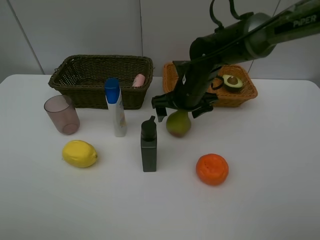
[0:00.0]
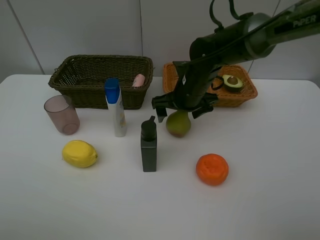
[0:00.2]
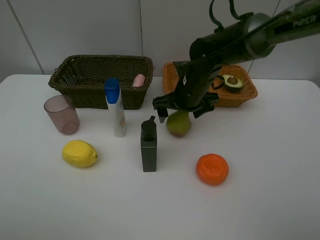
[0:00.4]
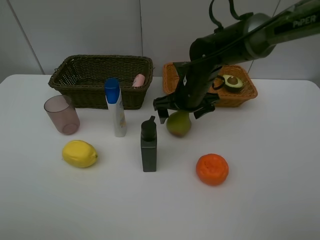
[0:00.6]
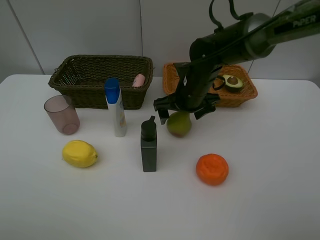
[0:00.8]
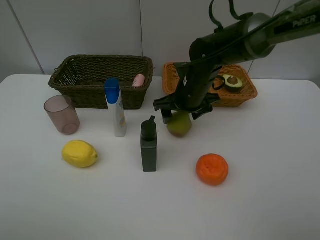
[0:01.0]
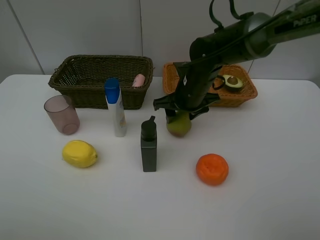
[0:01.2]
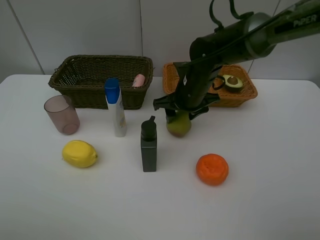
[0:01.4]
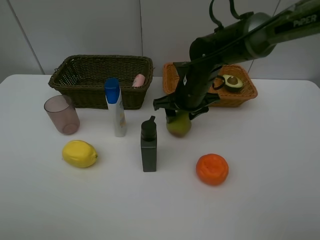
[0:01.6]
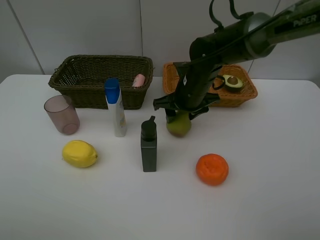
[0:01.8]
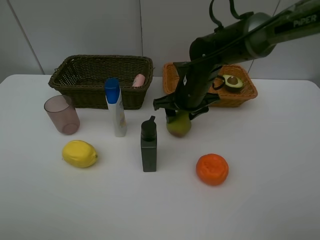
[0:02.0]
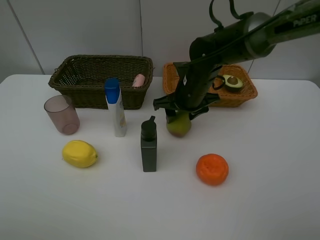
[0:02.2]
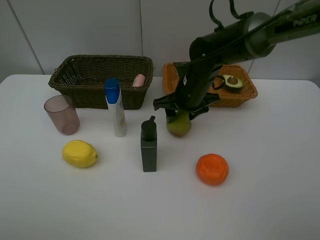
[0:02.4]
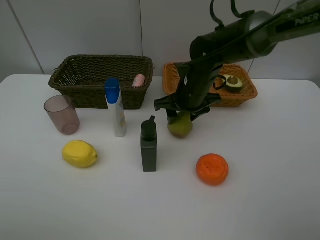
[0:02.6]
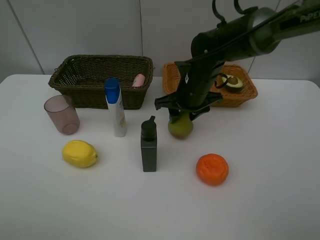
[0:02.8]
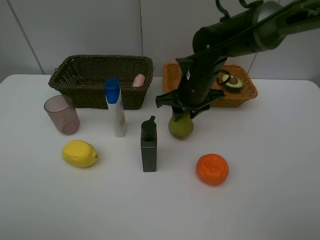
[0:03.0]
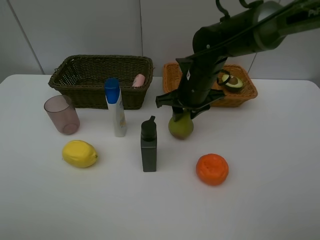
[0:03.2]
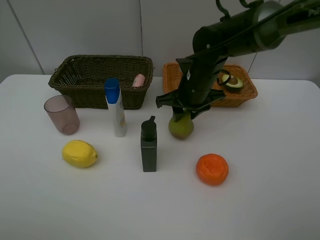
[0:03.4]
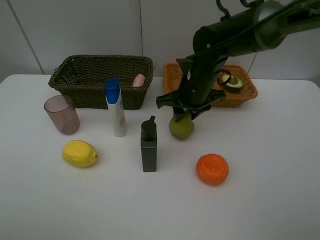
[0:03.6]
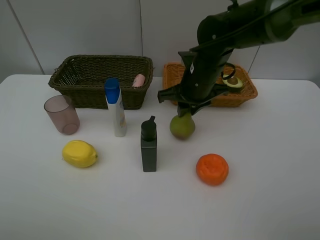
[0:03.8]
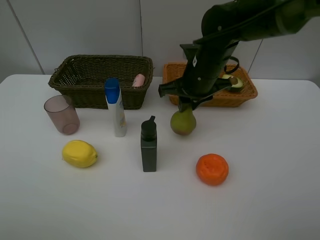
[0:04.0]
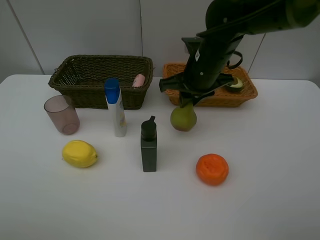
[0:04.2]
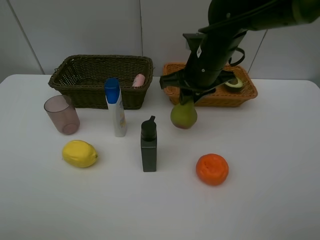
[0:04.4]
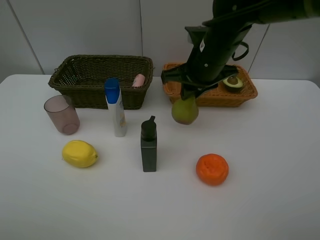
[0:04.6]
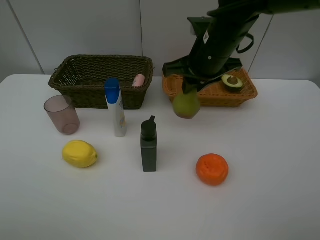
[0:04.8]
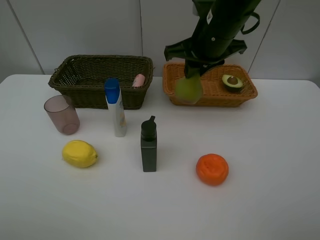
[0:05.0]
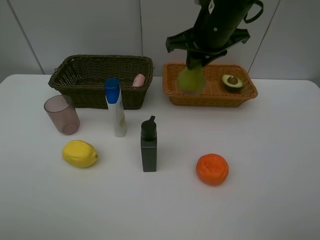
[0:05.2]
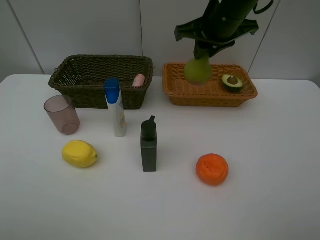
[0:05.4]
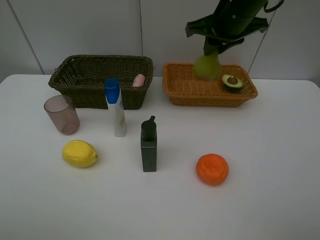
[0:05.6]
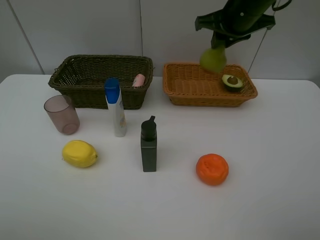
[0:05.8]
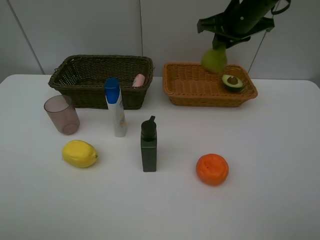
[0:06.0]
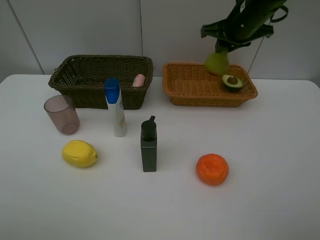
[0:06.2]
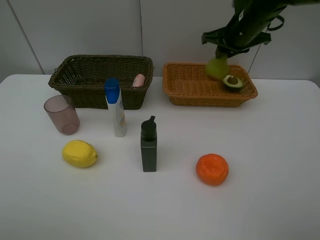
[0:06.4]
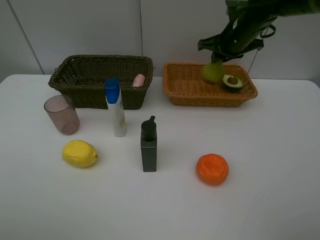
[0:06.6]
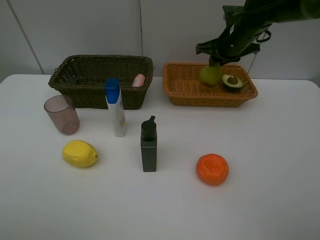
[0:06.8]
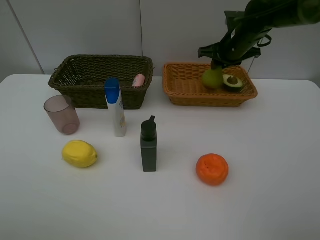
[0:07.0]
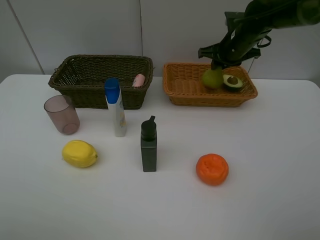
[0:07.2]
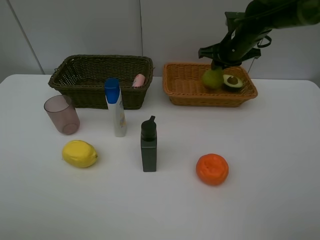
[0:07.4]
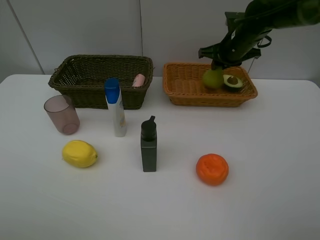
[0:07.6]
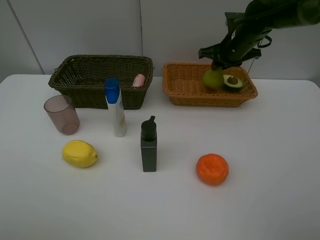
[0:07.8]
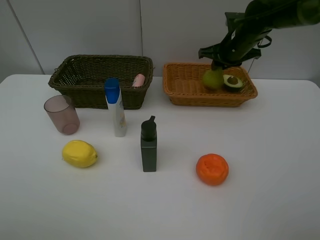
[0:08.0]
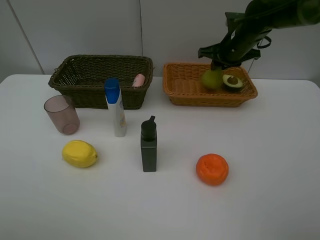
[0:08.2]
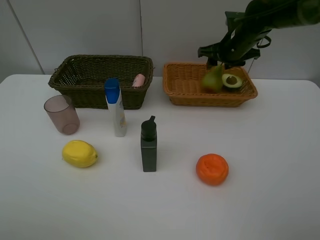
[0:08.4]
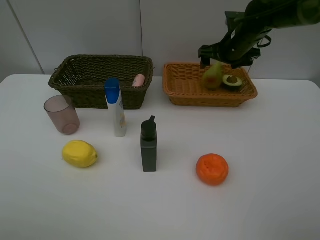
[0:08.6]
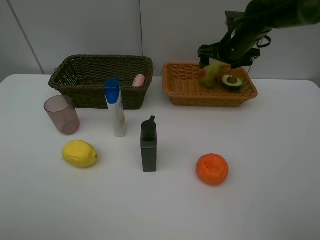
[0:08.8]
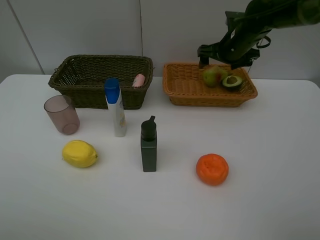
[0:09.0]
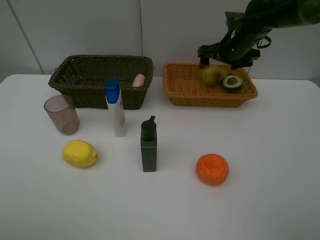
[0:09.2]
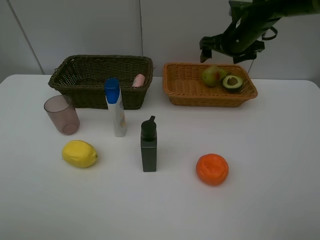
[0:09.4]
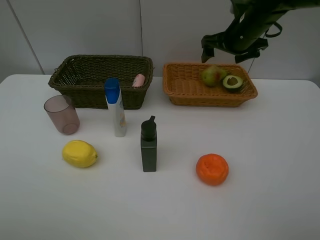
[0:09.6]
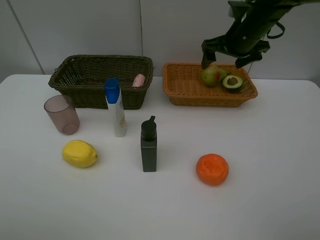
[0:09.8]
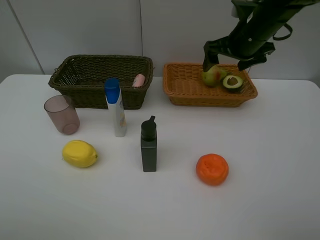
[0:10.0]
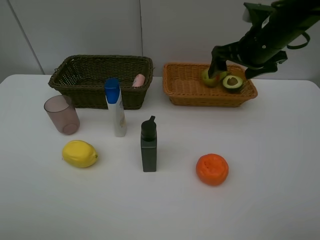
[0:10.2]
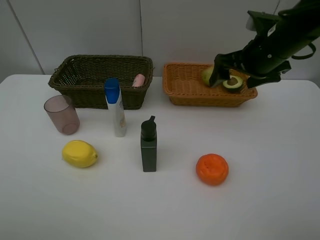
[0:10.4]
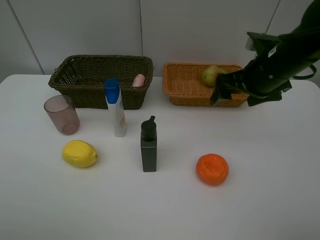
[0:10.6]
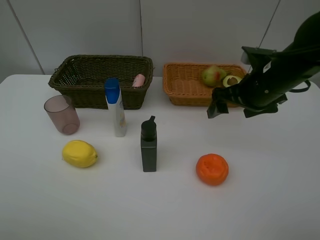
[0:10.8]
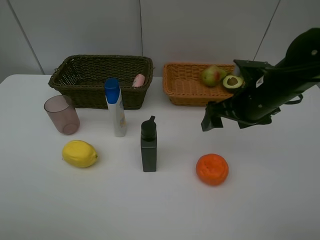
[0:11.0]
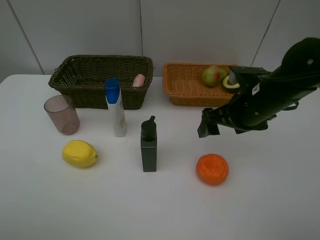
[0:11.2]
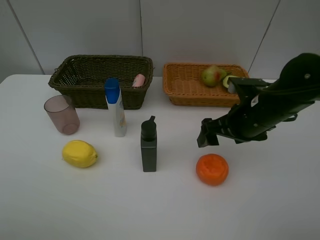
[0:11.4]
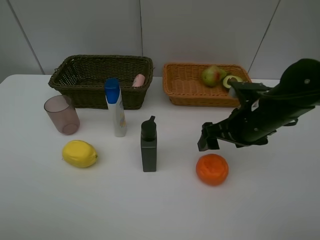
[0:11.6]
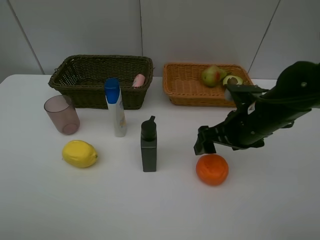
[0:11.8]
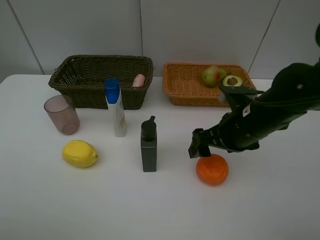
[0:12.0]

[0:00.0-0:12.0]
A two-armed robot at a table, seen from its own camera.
Task of the whole recording: Place multiple objects separately in different baskets.
Step, 0:00.0 to 0:04.2: Pick up the pear with right gripper.
Step, 0:04.4 to 0:08.6: Place the pear in the light basket with right gripper.
0:00.0 to 0:01.6: The right gripper closes.
0:01.6 to 0:03.0: The grippers make only small movements.
0:03.0 to 0:04.4: The right gripper shifts approximately 5 cm upward.
0:04.4 to 0:06.0: The right gripper heads to the right, forward and upward, covering approximately 10 cm.
0:06.0 to 0:07.6: The right gripper heads downward, covering approximately 10 cm.
0:07.6 to 0:09.0: The right gripper opens its fingers.
0:09.0 to 0:10.4: The right gripper travels backward by some 15 cm.
0:10.4 to 0:12.0: The right gripper heads downward and backward, covering some 10 cm.

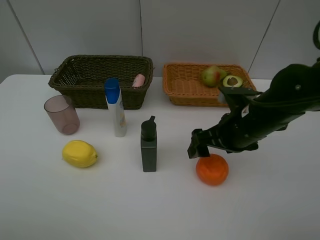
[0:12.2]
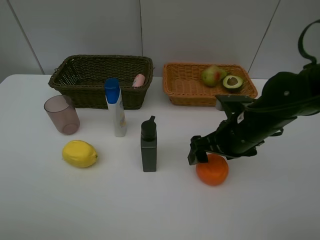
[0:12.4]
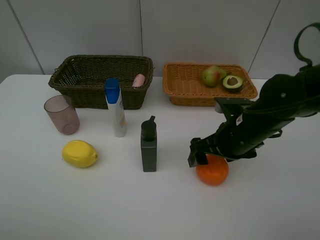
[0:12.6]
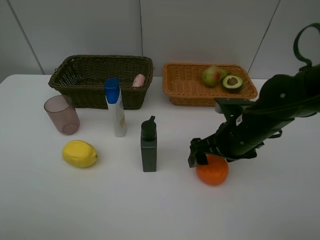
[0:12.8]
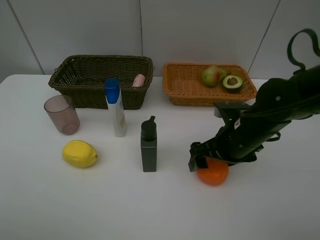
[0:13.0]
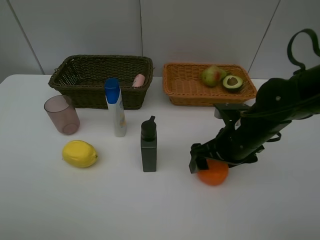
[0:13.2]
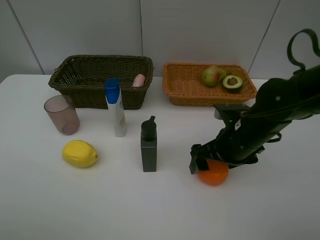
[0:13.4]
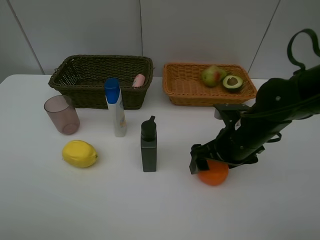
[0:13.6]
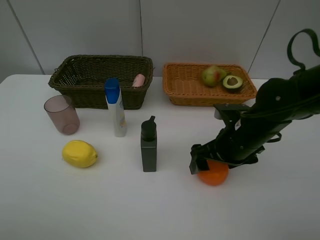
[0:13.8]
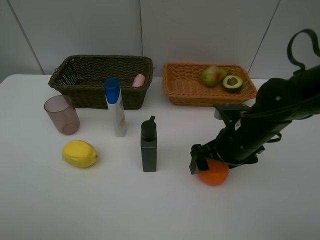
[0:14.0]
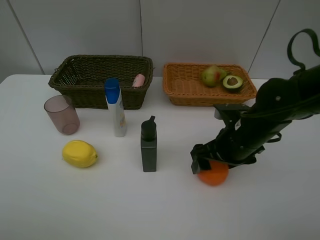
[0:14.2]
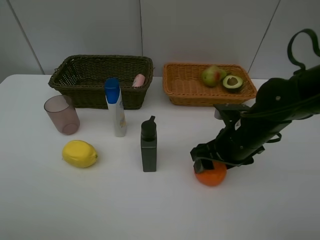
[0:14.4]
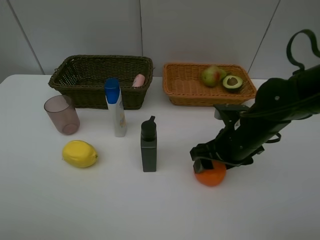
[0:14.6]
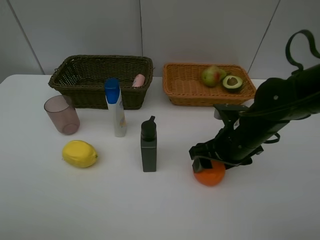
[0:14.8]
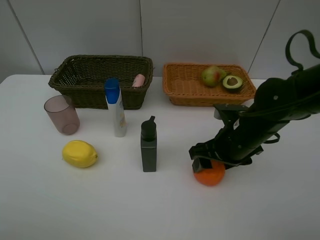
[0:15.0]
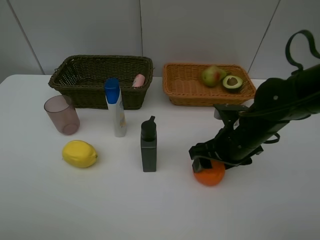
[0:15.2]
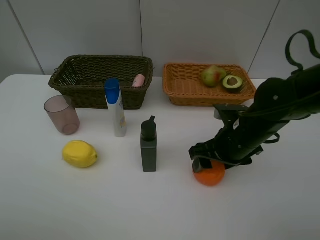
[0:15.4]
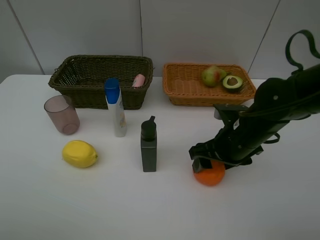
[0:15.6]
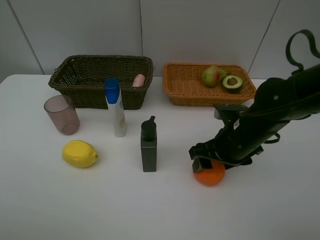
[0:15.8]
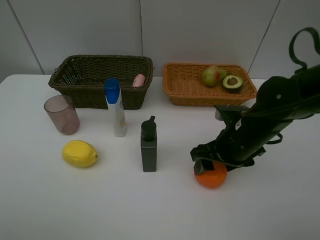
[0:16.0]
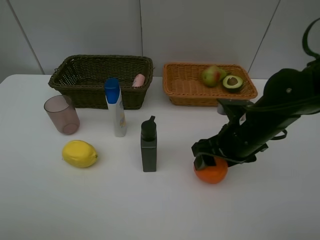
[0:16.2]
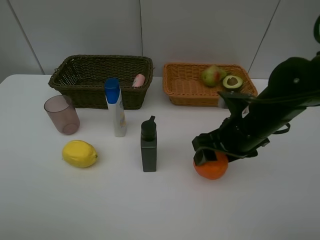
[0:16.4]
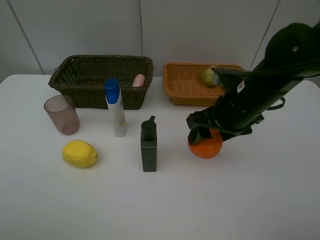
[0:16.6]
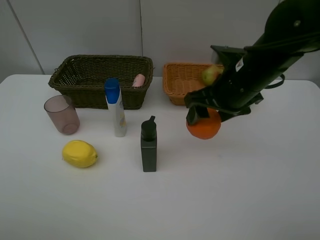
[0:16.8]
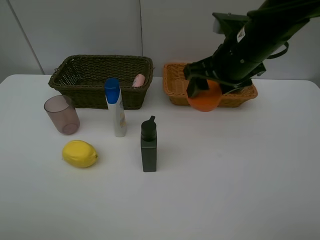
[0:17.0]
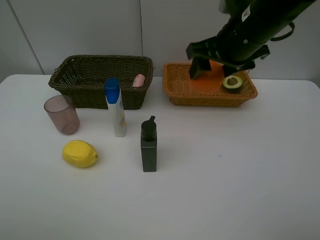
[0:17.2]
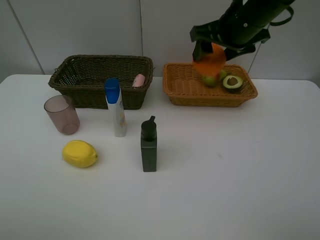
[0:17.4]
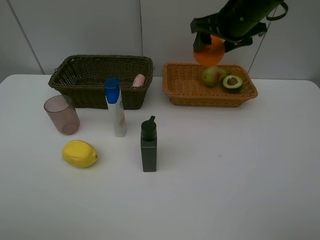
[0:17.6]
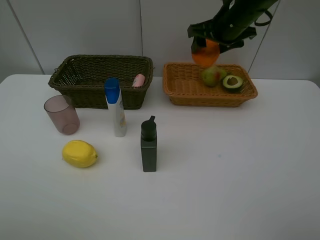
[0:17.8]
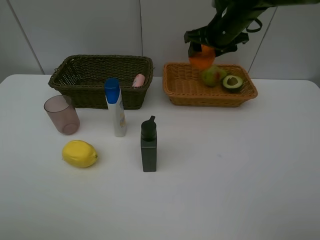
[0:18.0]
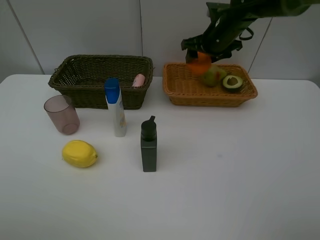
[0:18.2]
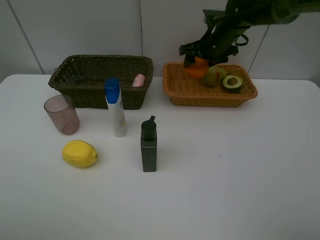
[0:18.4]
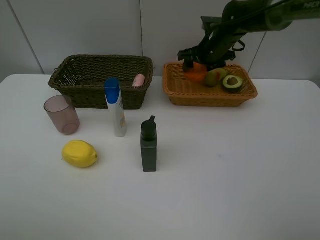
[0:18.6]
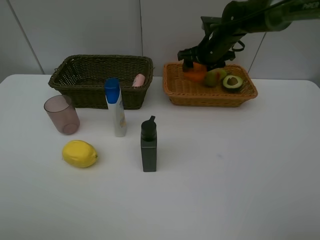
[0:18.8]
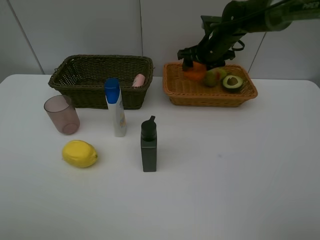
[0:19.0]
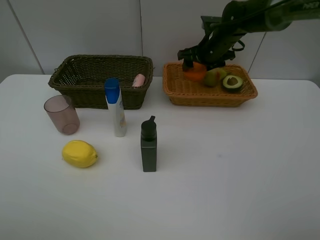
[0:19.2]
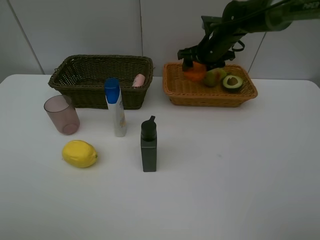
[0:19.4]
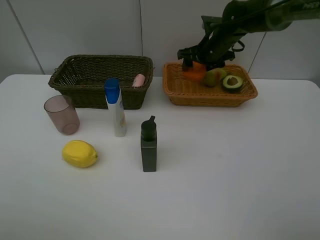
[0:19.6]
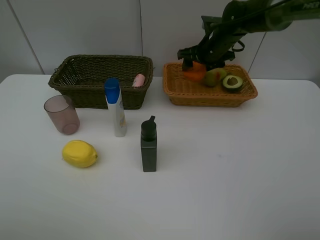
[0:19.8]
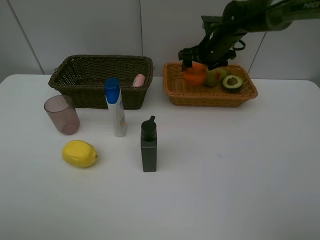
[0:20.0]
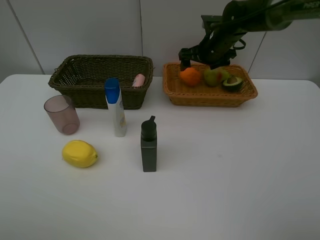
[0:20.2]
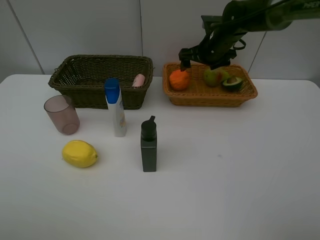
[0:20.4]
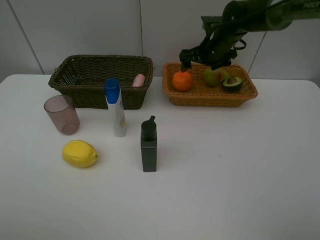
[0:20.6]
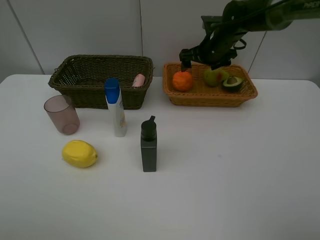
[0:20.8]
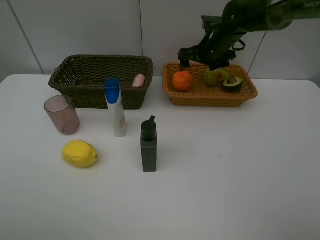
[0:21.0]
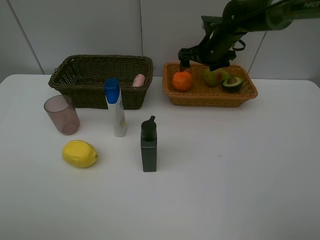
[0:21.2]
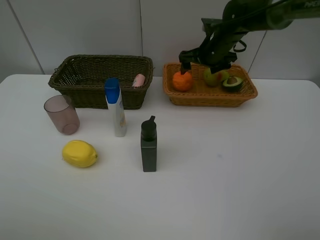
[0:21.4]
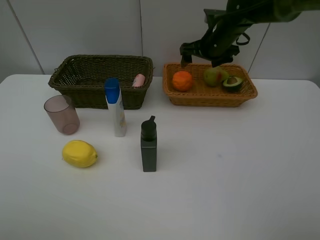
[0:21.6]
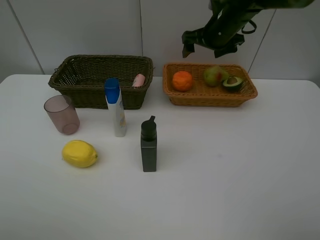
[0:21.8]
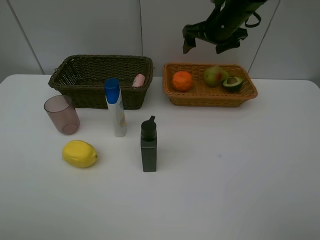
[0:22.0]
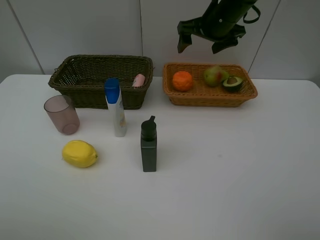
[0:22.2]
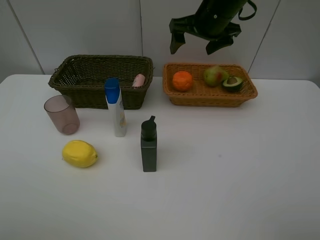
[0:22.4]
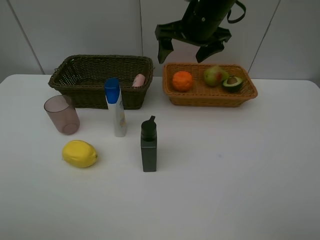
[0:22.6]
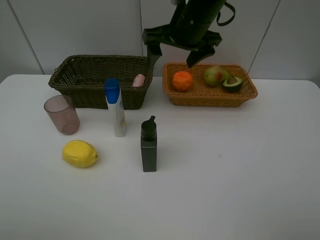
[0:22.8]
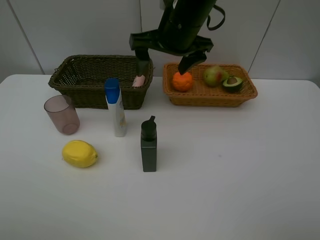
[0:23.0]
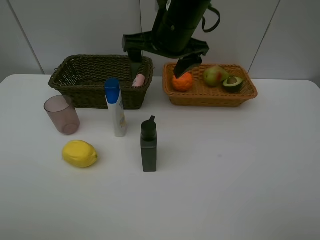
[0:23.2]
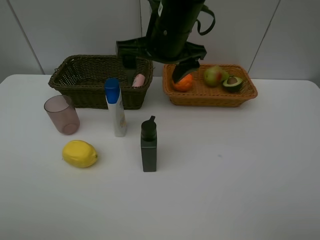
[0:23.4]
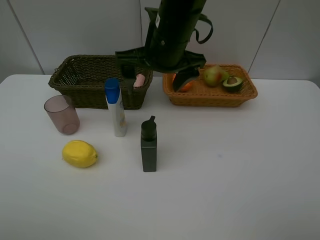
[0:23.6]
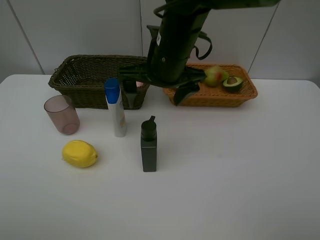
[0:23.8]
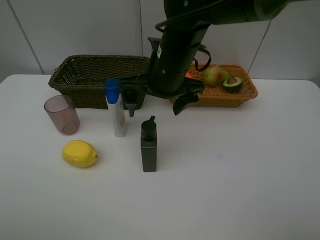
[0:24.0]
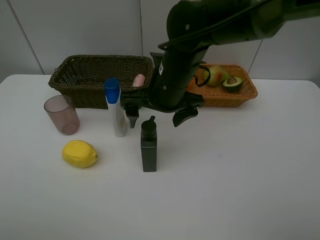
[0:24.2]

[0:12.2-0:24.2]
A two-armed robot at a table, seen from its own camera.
Task of the whole recording: Place multiple objects separately in different baskets.
Step, 0:12.2 to 0:16.2: Pick up the orange with right gripper.
Step, 0:16.4 to 0:20.6: Place the orange in the light basket with right gripper.
0:12.2 to 0:13.8: There are only small adjustments of the grippers.
0:13.8 to 0:15.2: The right gripper closes up.
0:15.2 to 0:16.6: The right gripper shifts approximately 10 cm upward.
0:16.6 to 0:18.2: The right gripper travels forward by roughly 20 cm.
0:18.2 to 0:19.8: The grippers move only a little.
0:19.8 to 0:21.2: The right gripper opens.
0:21.2 to 0:22.6: The right gripper moves upward, backward and to the left, some 15 cm.
0:22.6 to 0:24.2: The right gripper shifts about 15 cm downward, backward and to the left.
